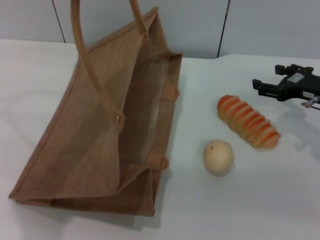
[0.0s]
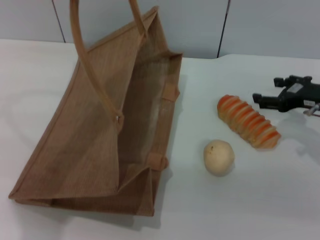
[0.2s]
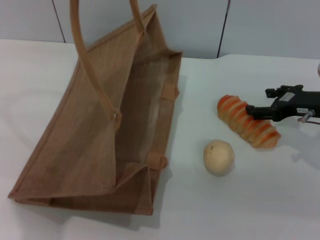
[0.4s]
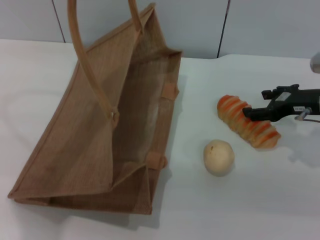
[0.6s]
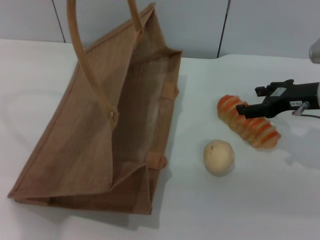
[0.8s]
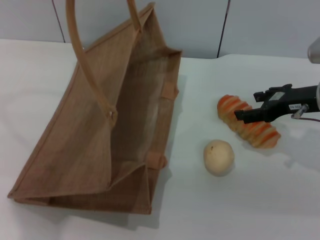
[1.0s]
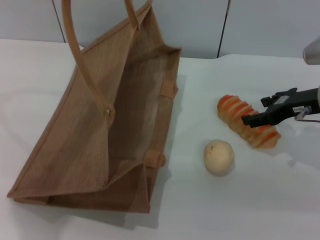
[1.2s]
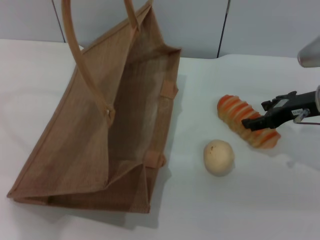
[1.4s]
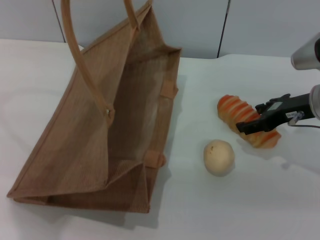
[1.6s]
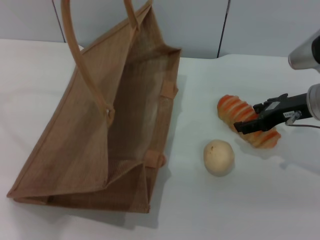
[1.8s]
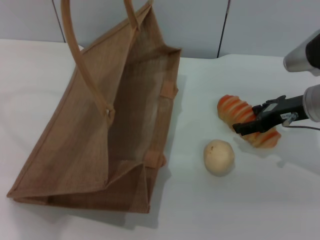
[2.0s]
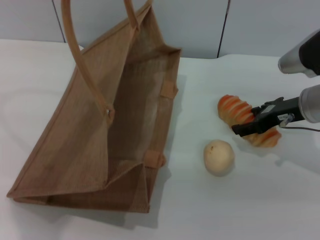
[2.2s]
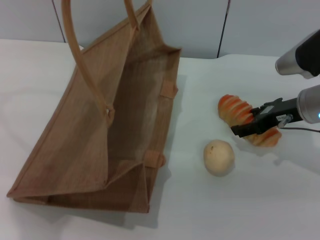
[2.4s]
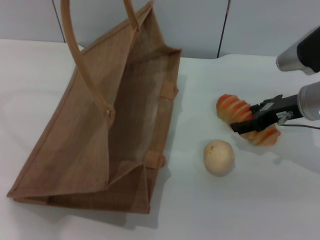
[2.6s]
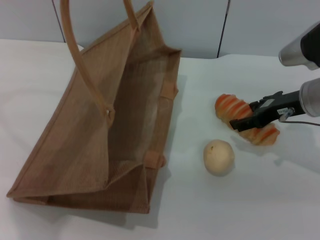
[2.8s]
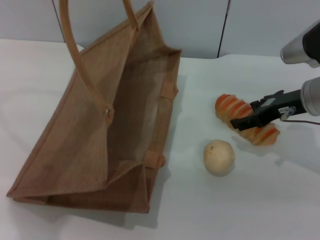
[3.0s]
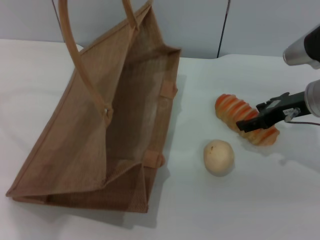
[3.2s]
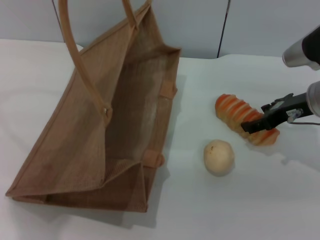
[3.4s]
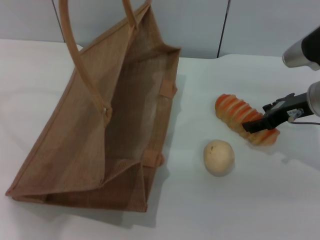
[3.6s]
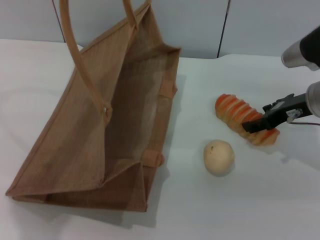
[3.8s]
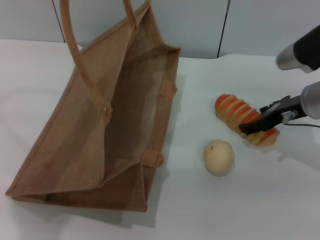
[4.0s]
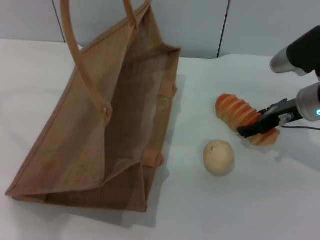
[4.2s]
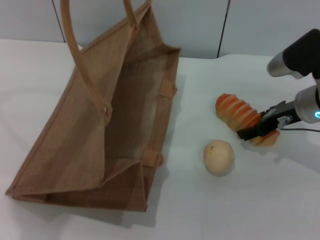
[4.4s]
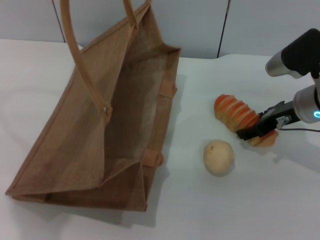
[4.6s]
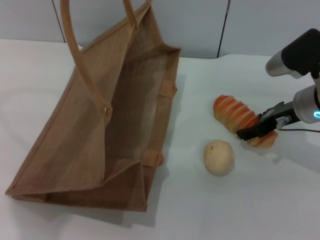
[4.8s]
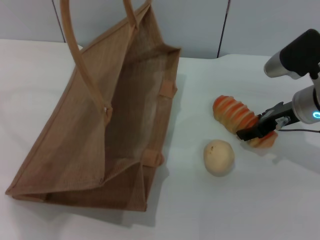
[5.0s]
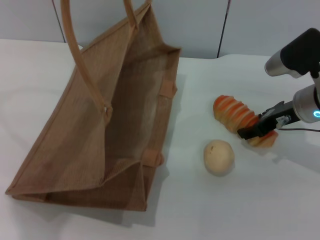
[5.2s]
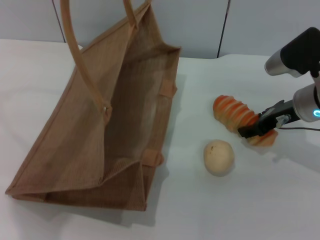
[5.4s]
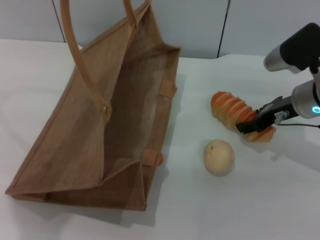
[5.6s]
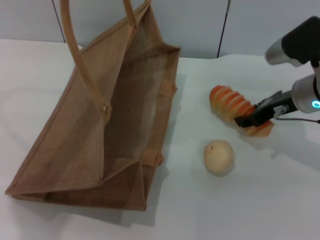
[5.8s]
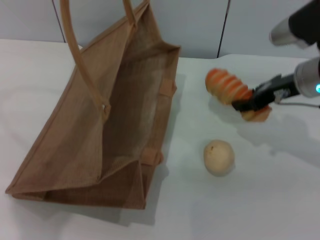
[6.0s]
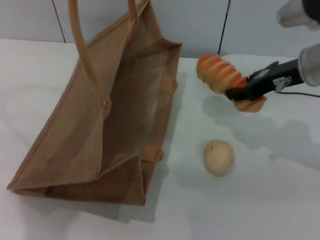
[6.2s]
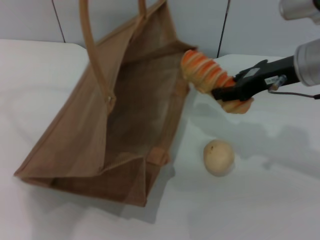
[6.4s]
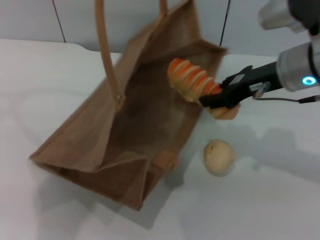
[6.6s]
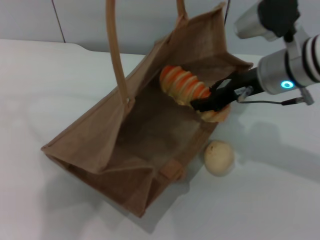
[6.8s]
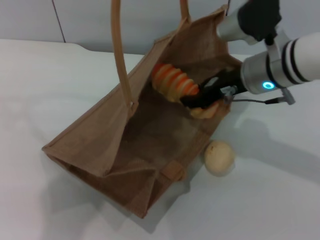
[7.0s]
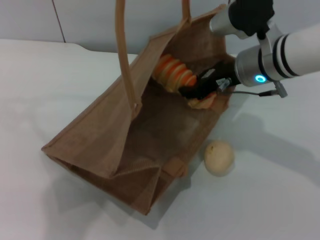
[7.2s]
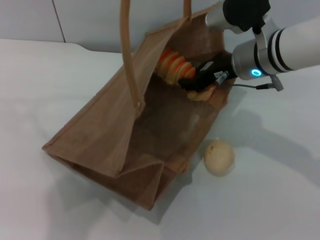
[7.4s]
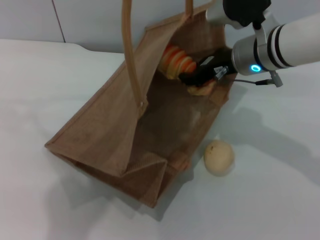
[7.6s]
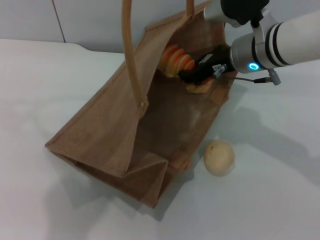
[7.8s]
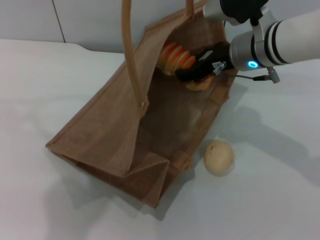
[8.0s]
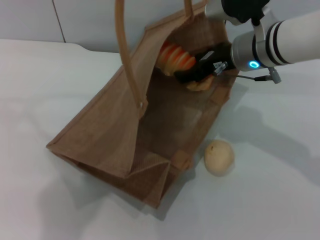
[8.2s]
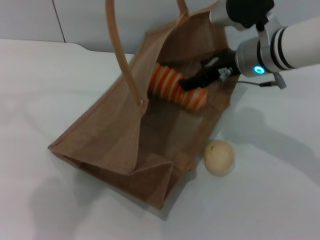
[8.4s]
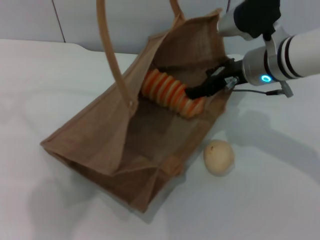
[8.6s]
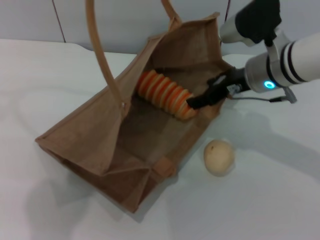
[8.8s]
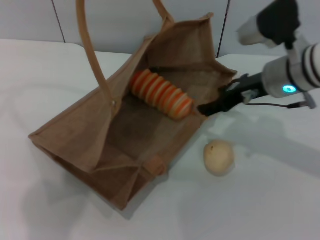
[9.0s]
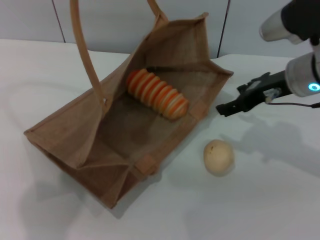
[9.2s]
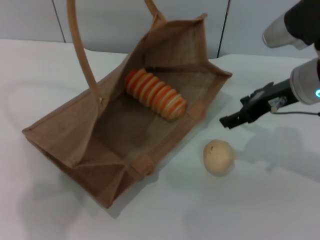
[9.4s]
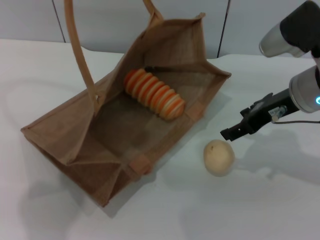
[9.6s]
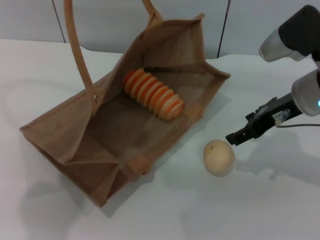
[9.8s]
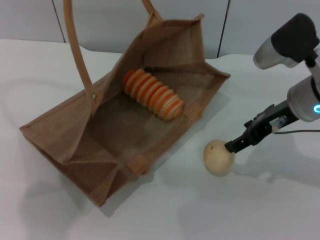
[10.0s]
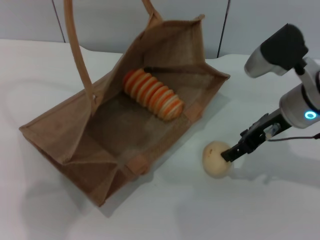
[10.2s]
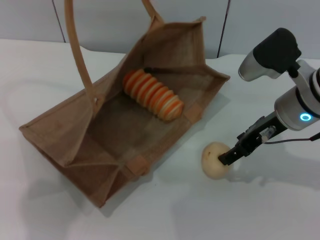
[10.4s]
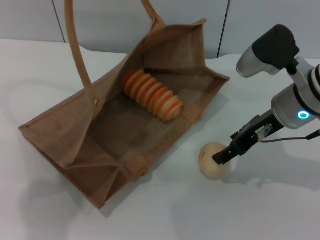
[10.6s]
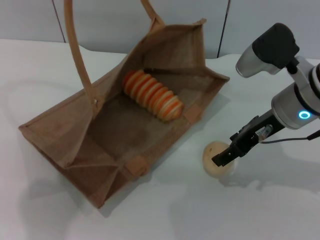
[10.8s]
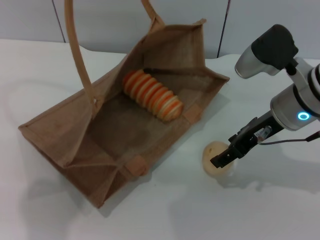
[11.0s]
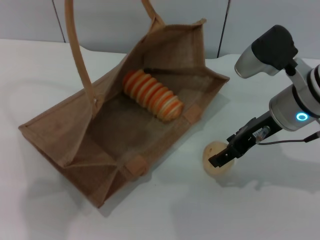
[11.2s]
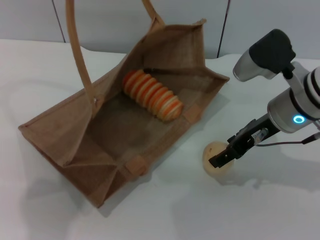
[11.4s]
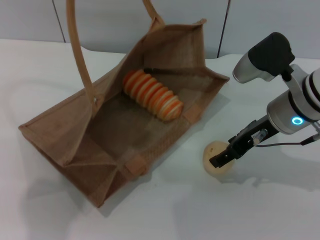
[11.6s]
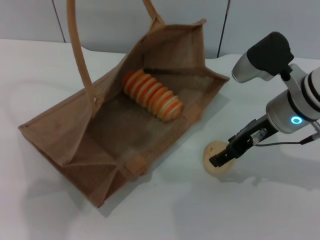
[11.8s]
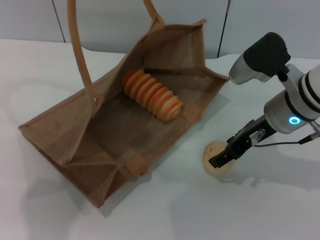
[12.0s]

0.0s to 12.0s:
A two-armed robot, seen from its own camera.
Task of the whole recording: pick up the bread and egg yolk pastry from the table and place it in the brown handbag.
Step, 0.0s to 6.0s: Pick up the bread with the right gripper.
Step, 6.4s to 9.4s: Place the bread into the woven bag with the right gripper.
0.0s to 1.6s: The right gripper shifts by some 5 cm.
1.6s to 4.4s: The grippers stay close to where they were, moving slightly.
4.4s to 6.0s: The right gripper closes up.
6.0s to 7.6s: The right gripper travels to the left by roughly 10 cm, while the left gripper is displaced to the right by about 5 cm.
7.6s to 9.0s: The left gripper ends up some 5 cm from where it was; the right gripper moves approximately 5 cm, and opens its fingers.
10.4s to 12.0s: Both grippers stay about where they are.

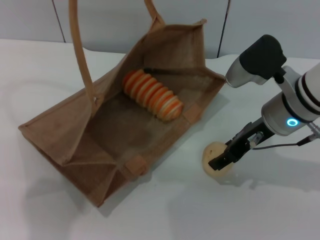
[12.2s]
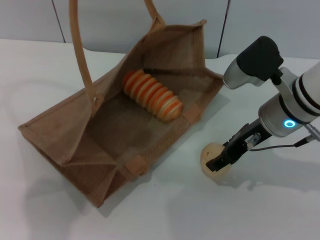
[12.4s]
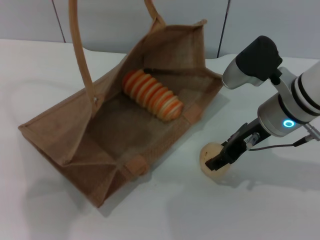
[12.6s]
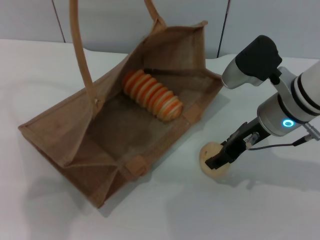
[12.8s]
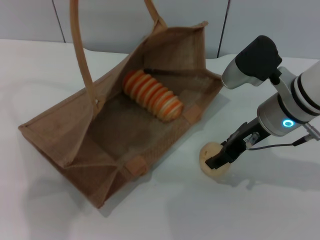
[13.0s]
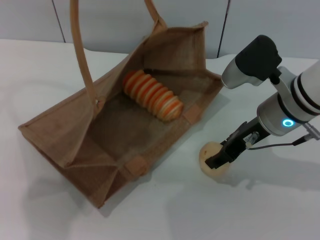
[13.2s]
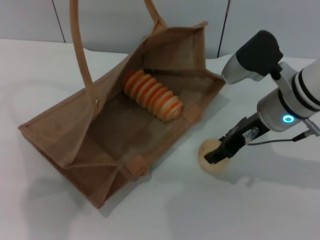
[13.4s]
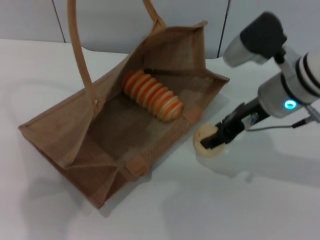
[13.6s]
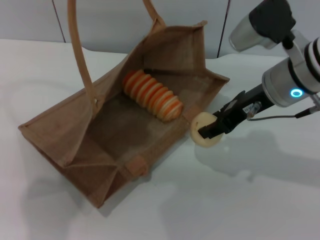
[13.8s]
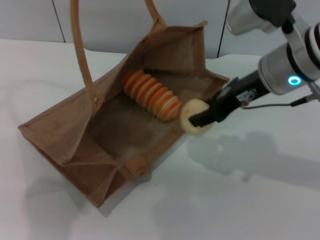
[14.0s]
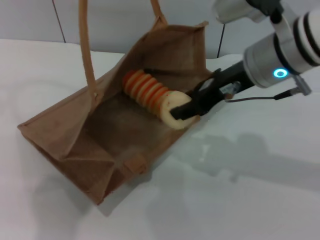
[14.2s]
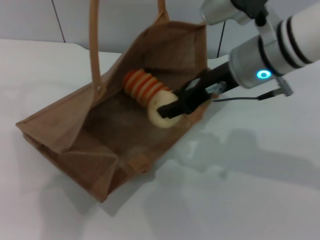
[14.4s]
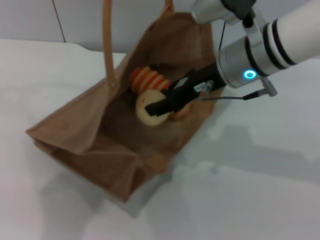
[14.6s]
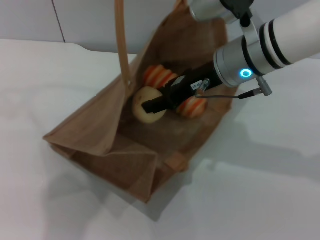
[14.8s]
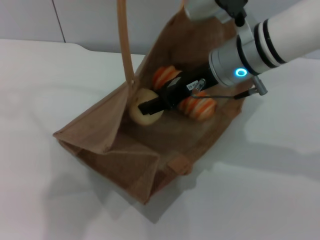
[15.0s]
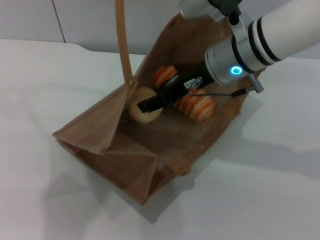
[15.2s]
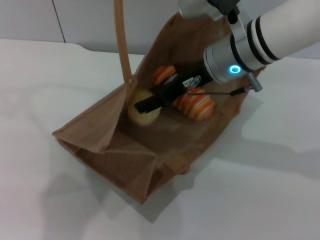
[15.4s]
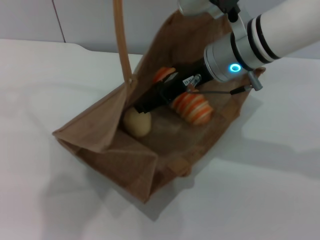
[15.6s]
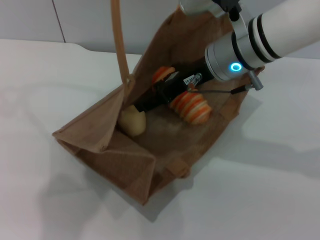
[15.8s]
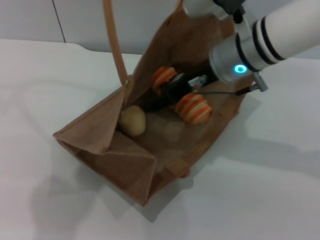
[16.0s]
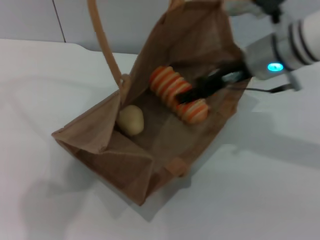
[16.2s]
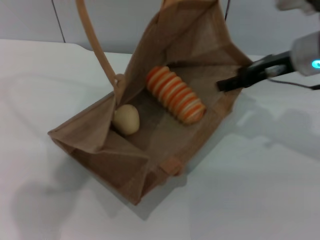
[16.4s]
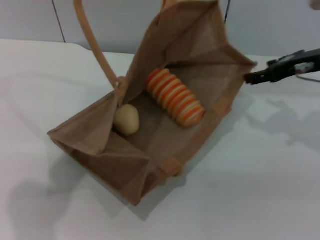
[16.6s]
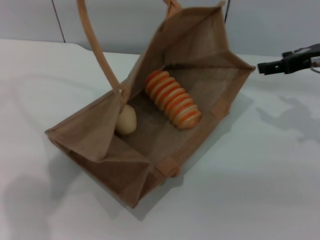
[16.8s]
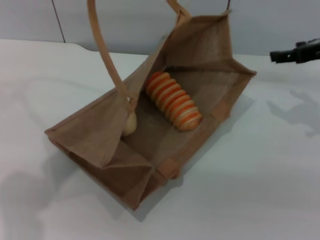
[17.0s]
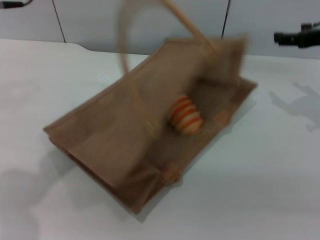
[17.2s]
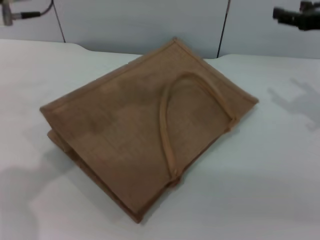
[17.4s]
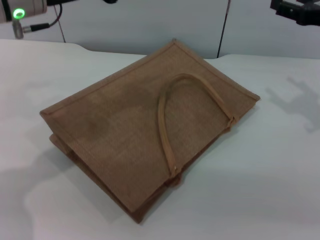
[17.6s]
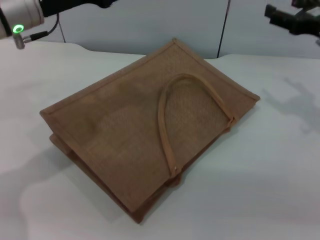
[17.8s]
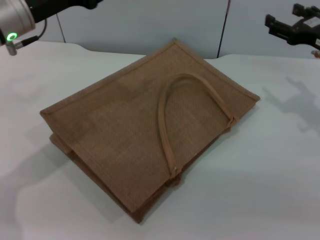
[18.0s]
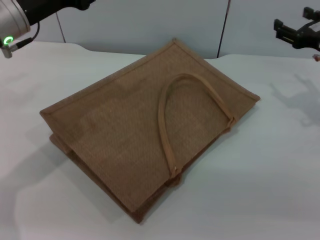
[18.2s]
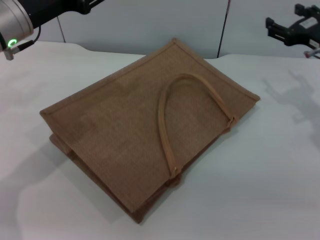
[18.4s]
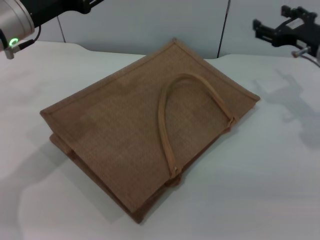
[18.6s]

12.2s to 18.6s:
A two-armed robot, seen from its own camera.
Task of the whole recording: pick up the bread and egg yolk pastry from the table and place it in the brown handbag.
Step, 14.2s to 16.6s: Place the egg yolk pastry into the woven bag with the right gripper.
Step, 17.0s to 18.0s: Lower the woven bag with the left gripper to close it.
12.2s to 13.8s: The right gripper closes.
13.8s to 15.4s: The right gripper is displaced to the left by approximately 5 cm. Meanwhile the left gripper ends up roughly 5 cm from where it was.
15.4s to 17.0s: The right gripper shifts approximately 20 cm to the right, and opens. Meanwhile the left gripper shifts roughly 10 cm downward and to the left.
17.0s to 18.6s: The left gripper goes approximately 10 cm downward, and opens, while the right gripper is displaced downward by about 5 cm.

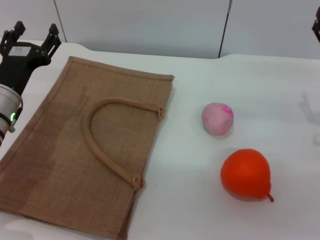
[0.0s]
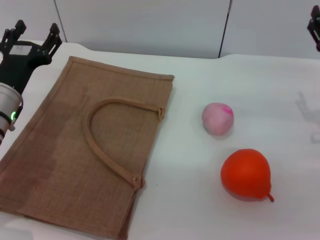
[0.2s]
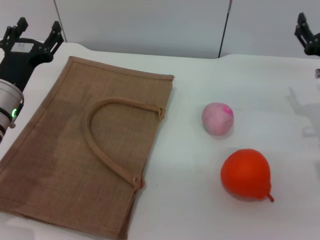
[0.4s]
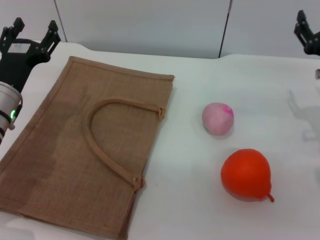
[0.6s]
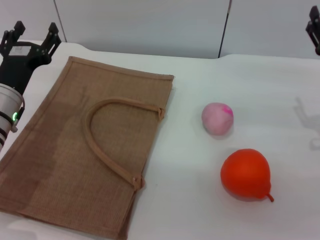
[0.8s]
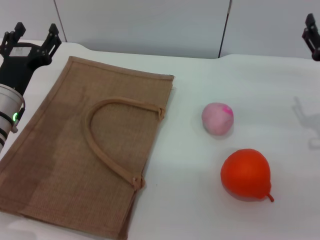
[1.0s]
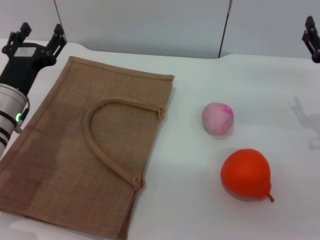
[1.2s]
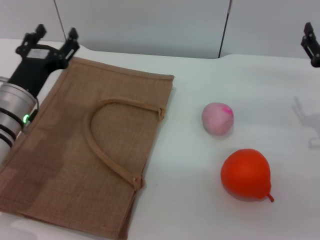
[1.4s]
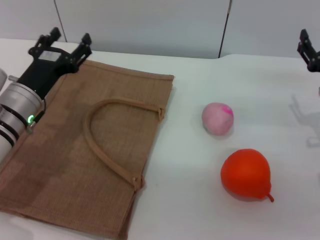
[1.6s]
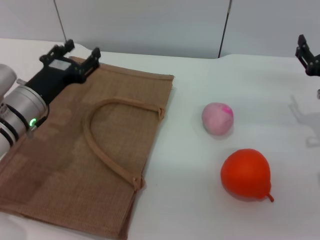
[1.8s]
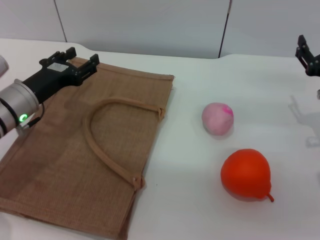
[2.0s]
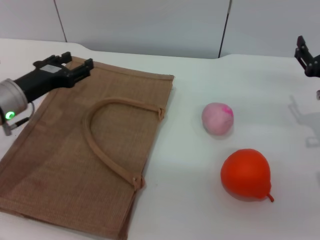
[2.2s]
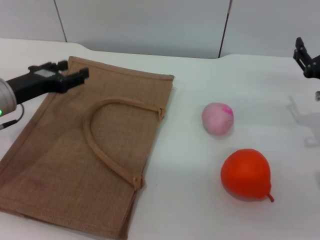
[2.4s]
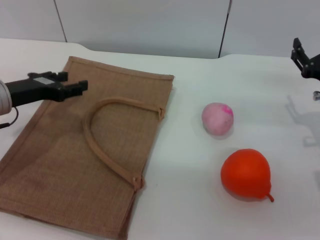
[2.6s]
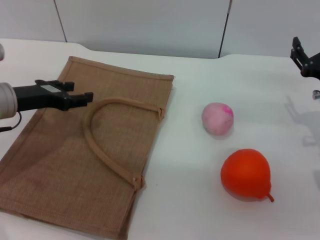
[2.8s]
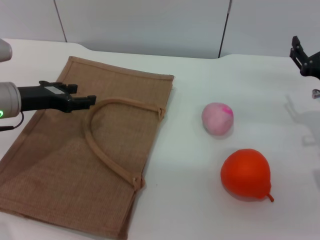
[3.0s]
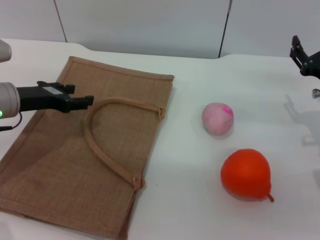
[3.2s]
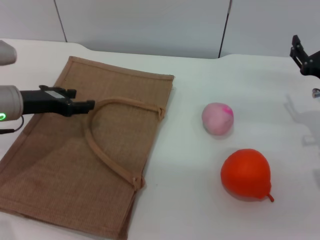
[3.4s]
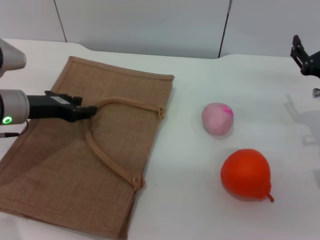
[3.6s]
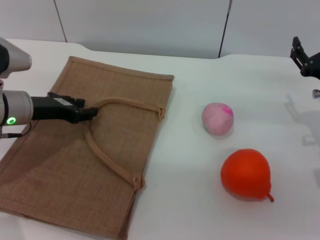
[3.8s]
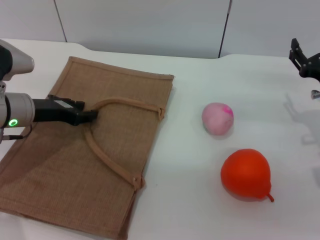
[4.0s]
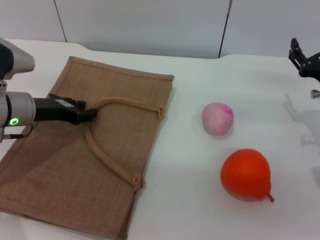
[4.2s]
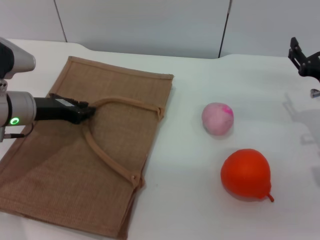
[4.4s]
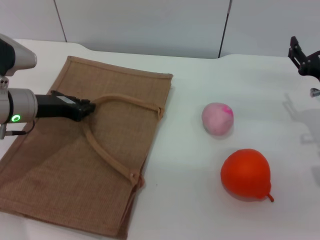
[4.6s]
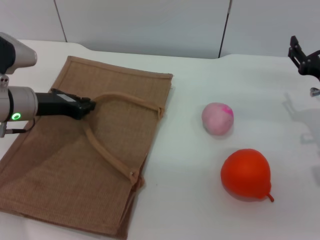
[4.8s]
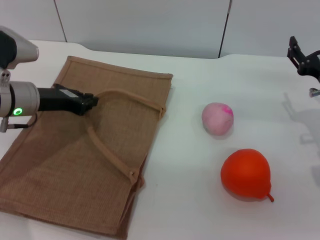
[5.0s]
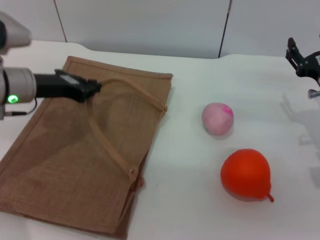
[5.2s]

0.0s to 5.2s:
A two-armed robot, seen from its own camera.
Task of the whole recording: pick up the orange and peach from the table and place it in the brown handbag.
0.0s to 1.8s: The grippers move only a little.
1.8s to 3.4s: The left gripper shifts by approximately 5 cm.
3.4s to 5.2s: The left gripper closes up.
